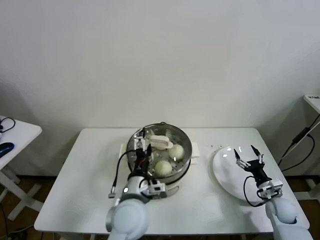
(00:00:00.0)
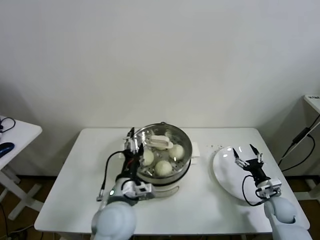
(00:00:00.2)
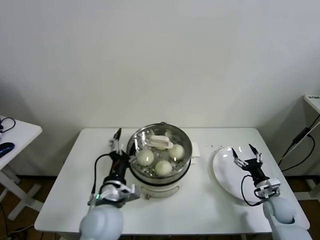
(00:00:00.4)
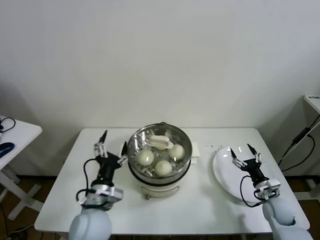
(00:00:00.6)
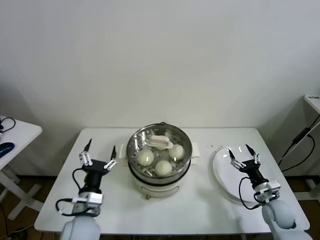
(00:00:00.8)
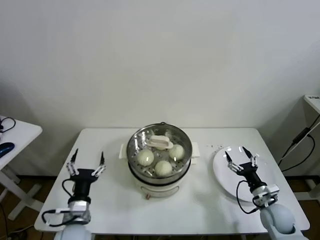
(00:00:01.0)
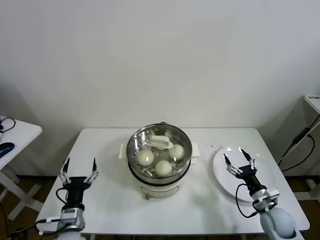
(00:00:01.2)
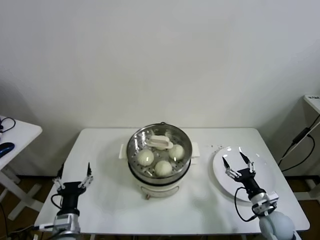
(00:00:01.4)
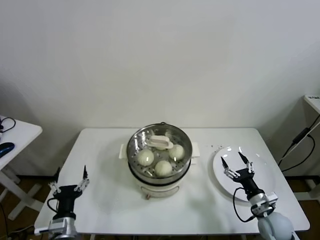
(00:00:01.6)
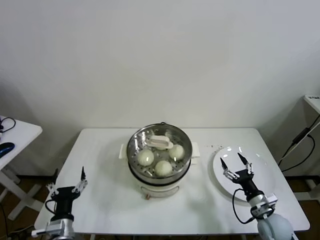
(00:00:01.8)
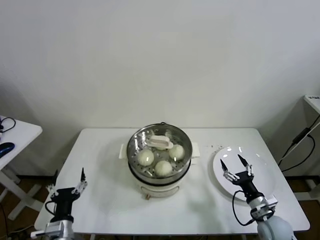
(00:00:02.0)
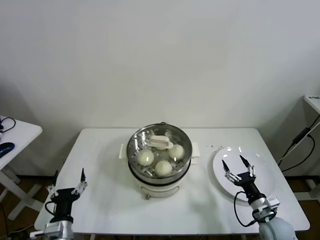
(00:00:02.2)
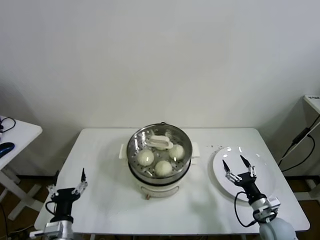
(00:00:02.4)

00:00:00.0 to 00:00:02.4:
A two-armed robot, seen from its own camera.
Task of the whole recording: take steamed baozi put them in steamer.
00:00:00.0 to 00:00:01.2: The left gripper is displaced to the left and downward by about 20 cm; the right gripper ends up some 5 cm from where it was.
00:00:01.2 to 00:00:02.4: The left gripper moves about 5 cm.
